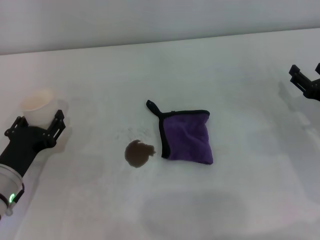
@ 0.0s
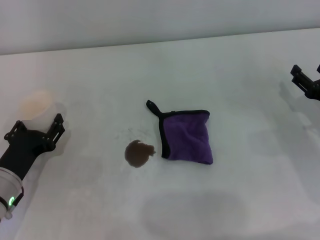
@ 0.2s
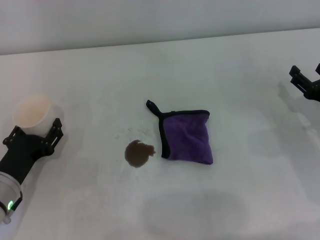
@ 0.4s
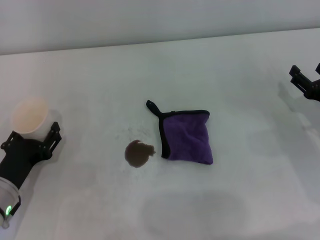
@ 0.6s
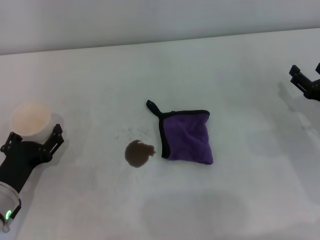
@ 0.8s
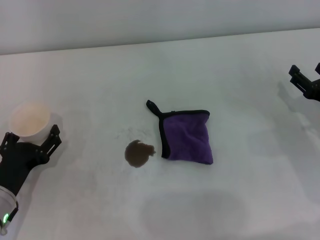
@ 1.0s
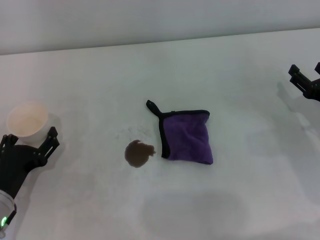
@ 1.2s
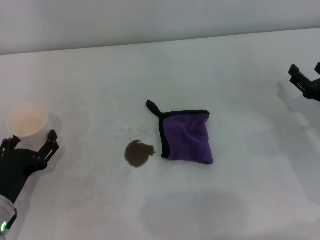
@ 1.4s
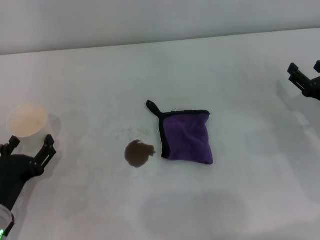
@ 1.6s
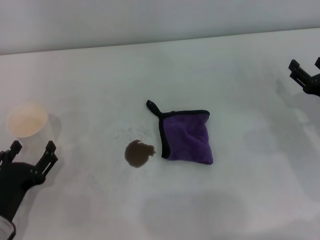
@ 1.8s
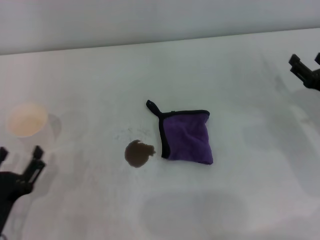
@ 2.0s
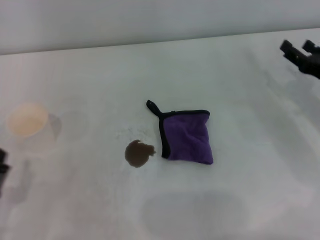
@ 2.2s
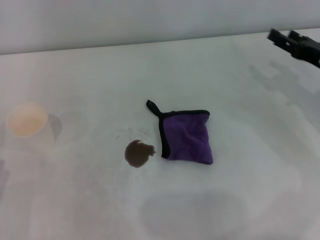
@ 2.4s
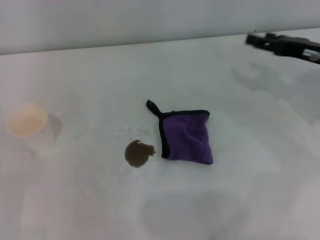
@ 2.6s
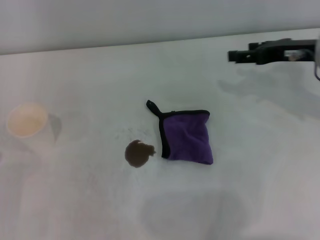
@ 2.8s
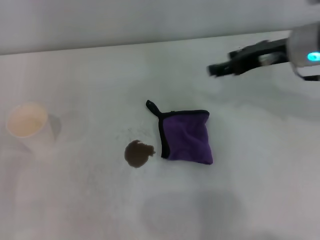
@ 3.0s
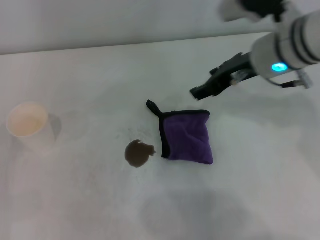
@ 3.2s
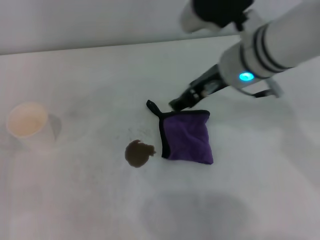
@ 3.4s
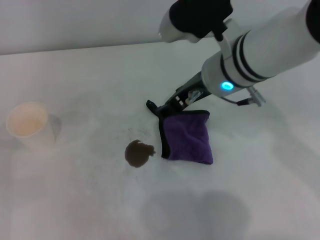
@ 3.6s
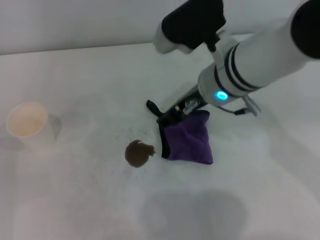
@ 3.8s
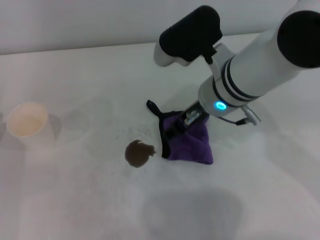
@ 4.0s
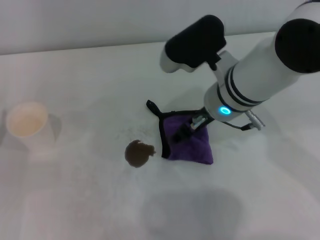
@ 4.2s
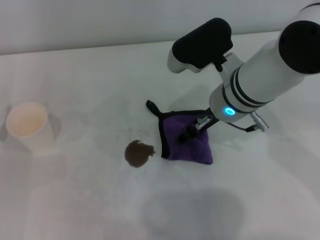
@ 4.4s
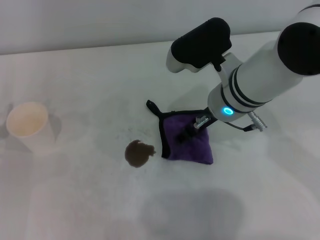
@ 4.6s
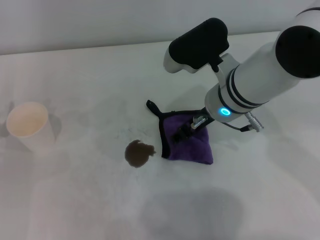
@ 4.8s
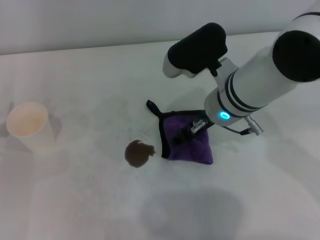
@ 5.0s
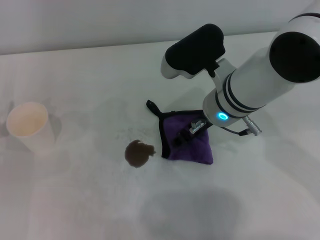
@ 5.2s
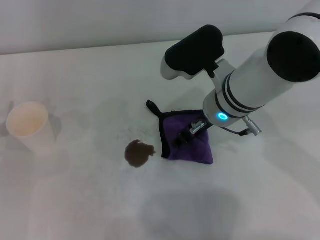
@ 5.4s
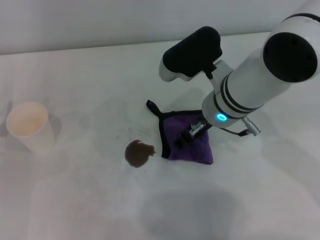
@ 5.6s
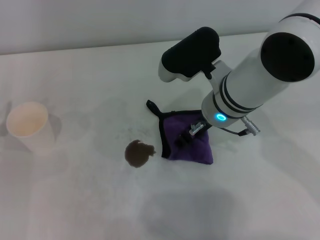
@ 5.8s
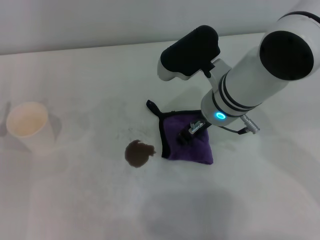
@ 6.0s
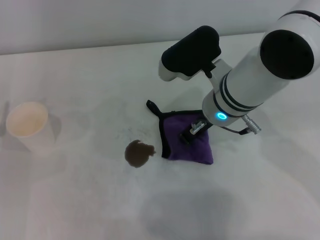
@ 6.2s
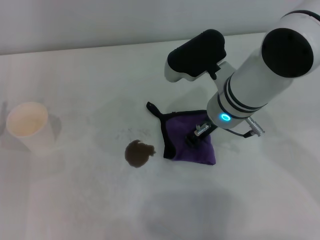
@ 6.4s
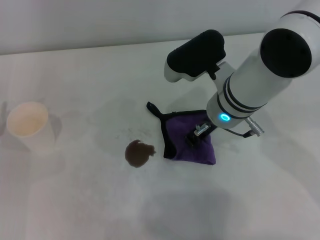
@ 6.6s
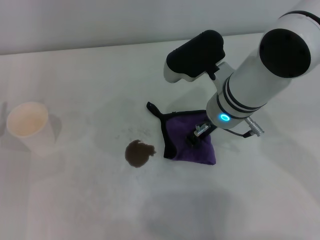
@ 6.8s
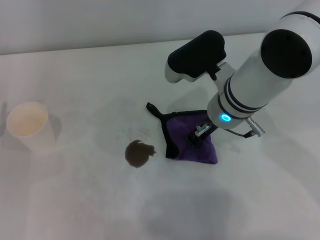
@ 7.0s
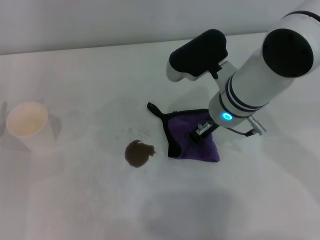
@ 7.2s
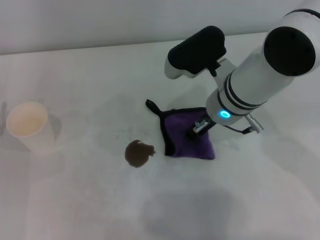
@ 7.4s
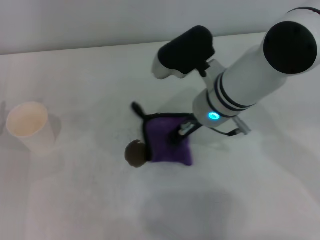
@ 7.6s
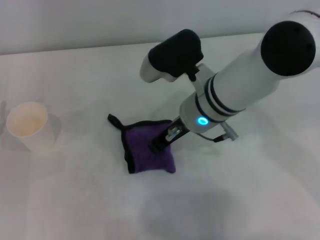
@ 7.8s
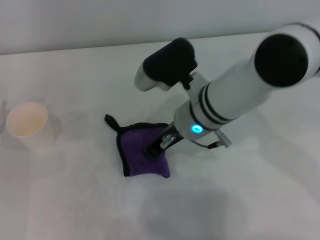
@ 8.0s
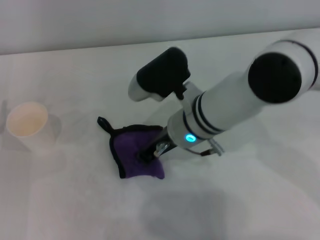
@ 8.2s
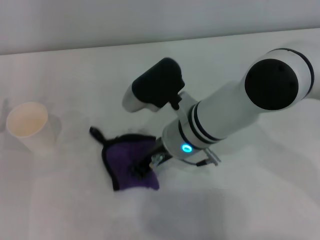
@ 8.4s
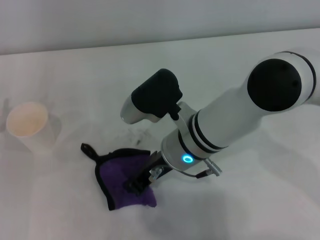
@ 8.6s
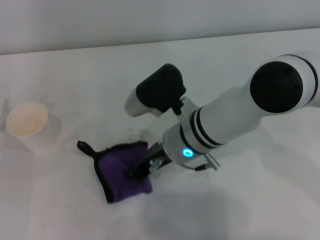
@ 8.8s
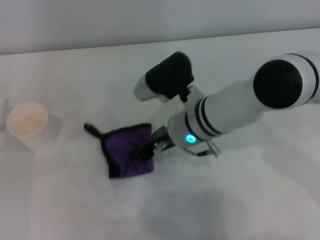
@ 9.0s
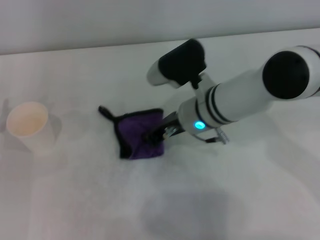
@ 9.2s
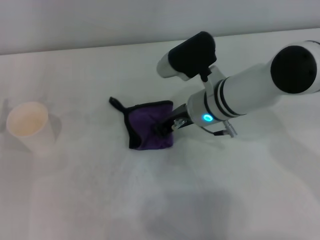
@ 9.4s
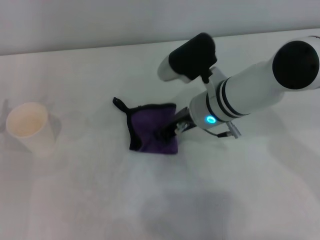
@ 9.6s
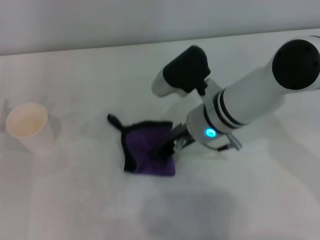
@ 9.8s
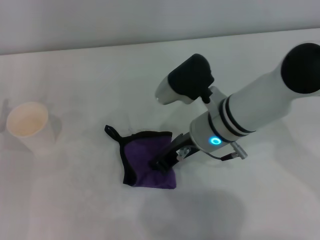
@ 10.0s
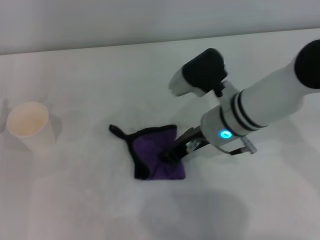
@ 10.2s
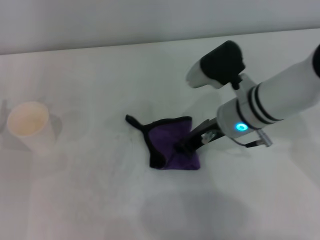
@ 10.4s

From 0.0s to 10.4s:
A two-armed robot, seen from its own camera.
Step, from 1.8s to 7.0s: Grasp the rag with the right gripper.
Step, from 7.2s to 10.2s: Wipe the stains off the table with the right gripper.
From 0.0s to 1.4s: The left gripper opens its fingers.
From 1.4s to 3.0s: The left gripper goes roughly 10 cm to the left, and reaches roughly 10 cm backward, then returns; the right gripper heads upward, to the left and forward, covering approximately 20 cm.
From 3.0s to 4.4s: The right gripper is displaced to the left by approximately 10 cm, while the left gripper is displaced forward by roughly 5 cm.
From 4.4s to 6.0s: The grippers make only small movements.
From 6.0s to 7.4s: The right gripper closes its fingers.
From 7.4s to 9.0s: The right gripper shifts by roughly 5 cm.
From 9.0s to 10.4s: The right gripper moves to the right, approximately 5 cm.

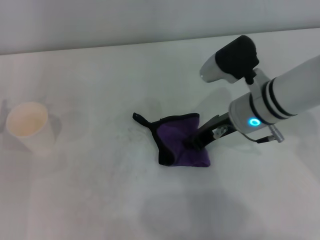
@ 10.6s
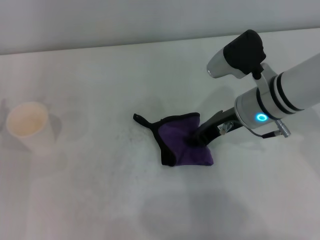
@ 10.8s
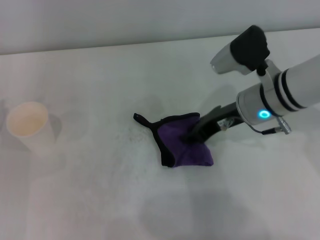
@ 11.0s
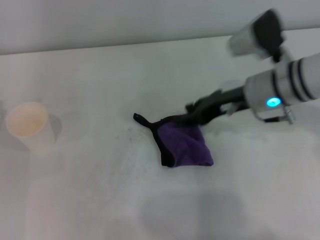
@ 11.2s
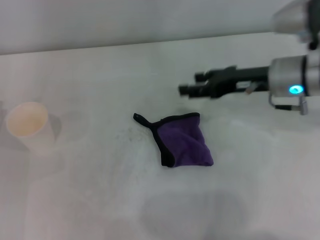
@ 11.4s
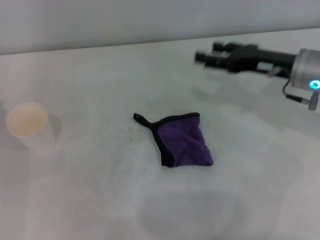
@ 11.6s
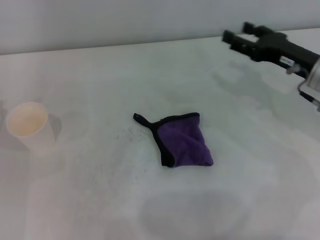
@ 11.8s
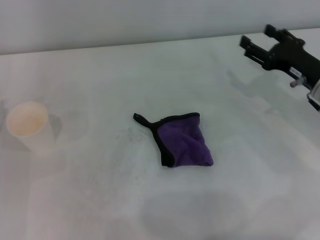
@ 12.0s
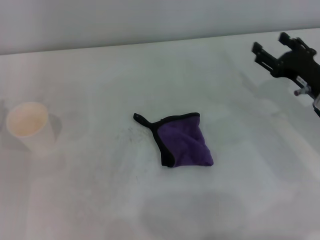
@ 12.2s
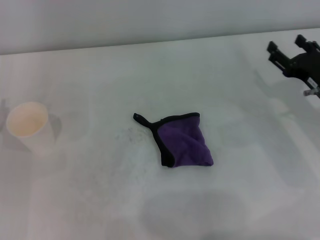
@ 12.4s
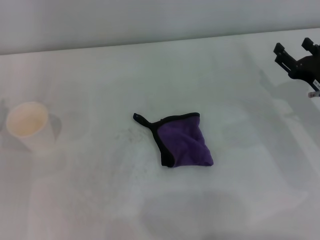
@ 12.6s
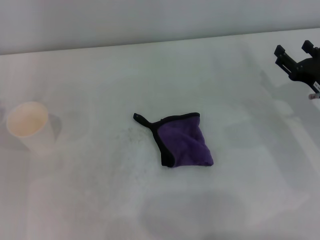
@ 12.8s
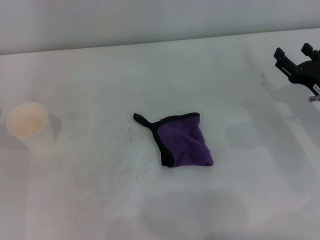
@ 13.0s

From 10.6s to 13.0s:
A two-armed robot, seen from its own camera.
Step, from 10.6s to 11.0s: Place the rag on the table with the right gripper.
From 10.6s to 11.8s: The right gripper shifts roughly 10 cm to the right, and opens its fingers.
From 11.8s to 13.0s: The right gripper travels downward by about 5 cm.

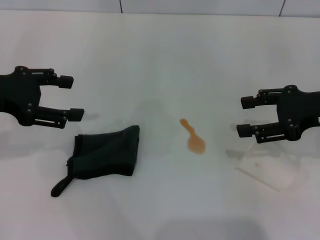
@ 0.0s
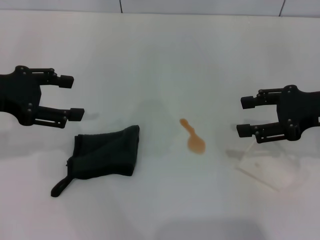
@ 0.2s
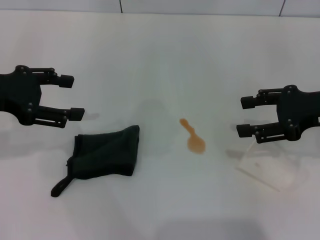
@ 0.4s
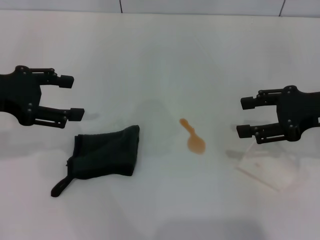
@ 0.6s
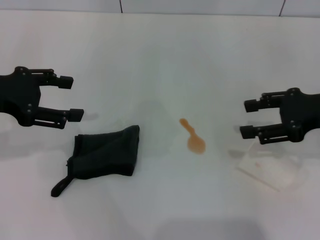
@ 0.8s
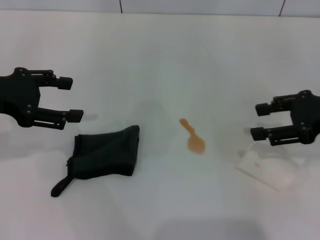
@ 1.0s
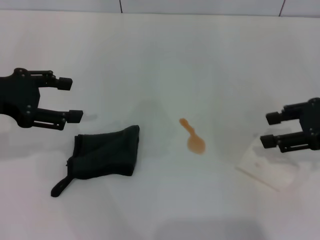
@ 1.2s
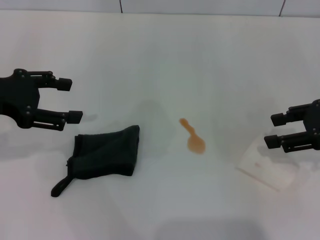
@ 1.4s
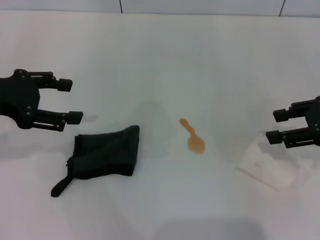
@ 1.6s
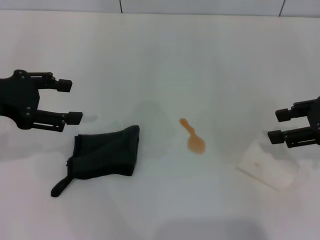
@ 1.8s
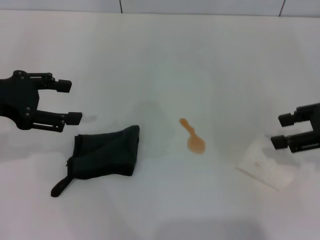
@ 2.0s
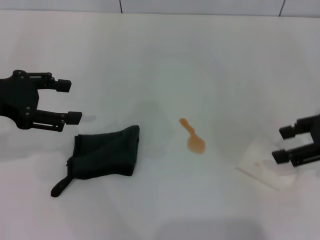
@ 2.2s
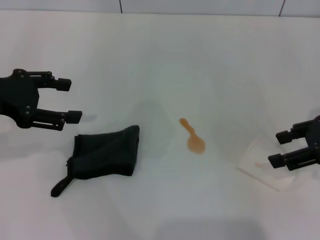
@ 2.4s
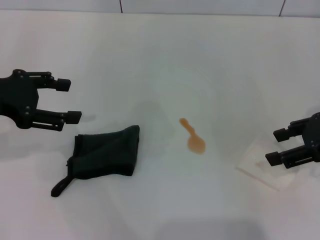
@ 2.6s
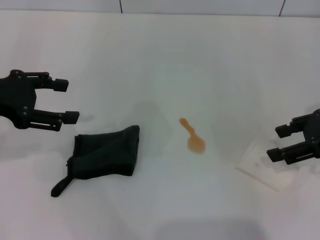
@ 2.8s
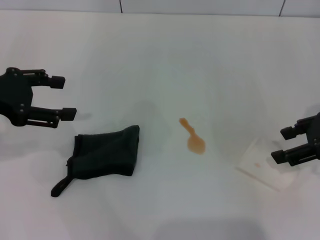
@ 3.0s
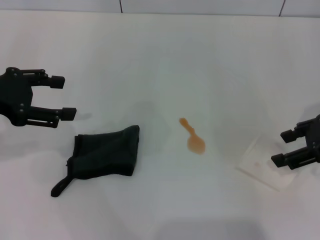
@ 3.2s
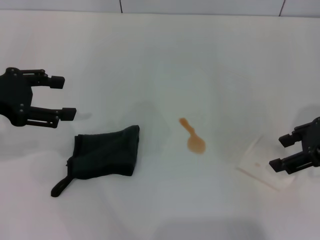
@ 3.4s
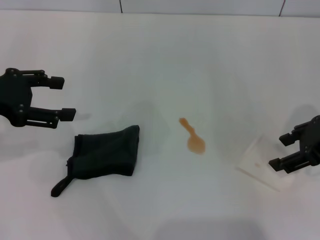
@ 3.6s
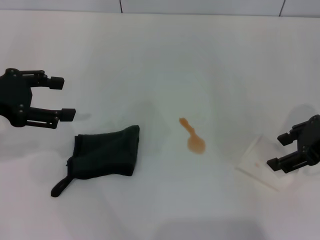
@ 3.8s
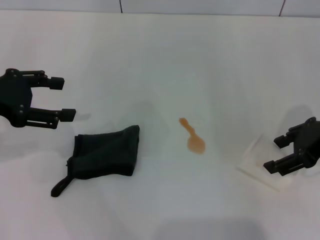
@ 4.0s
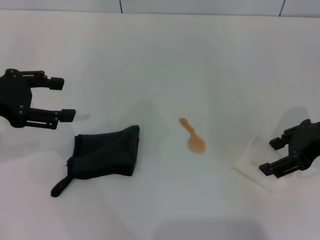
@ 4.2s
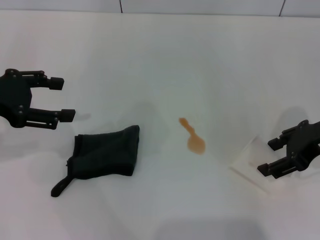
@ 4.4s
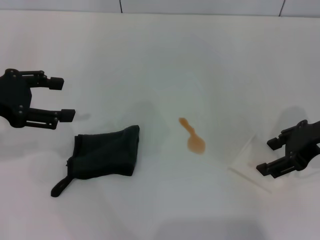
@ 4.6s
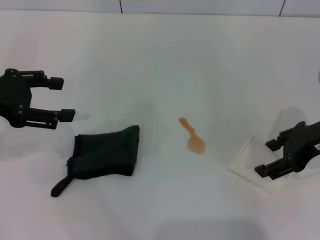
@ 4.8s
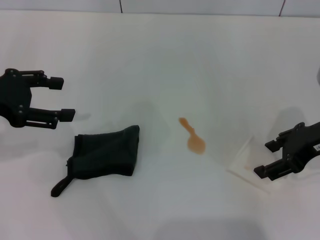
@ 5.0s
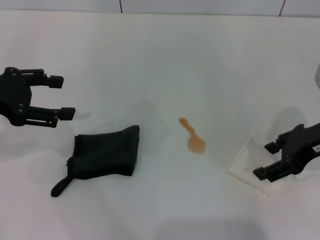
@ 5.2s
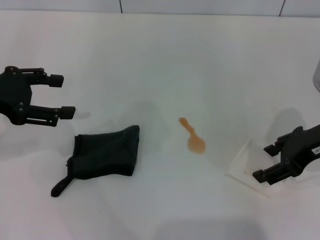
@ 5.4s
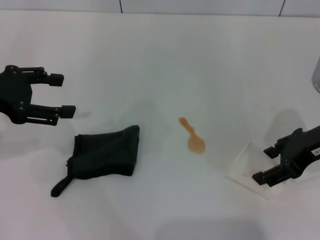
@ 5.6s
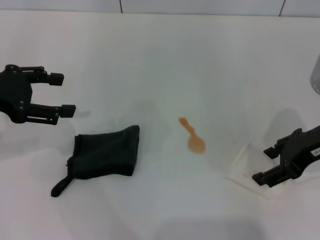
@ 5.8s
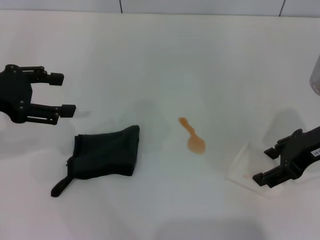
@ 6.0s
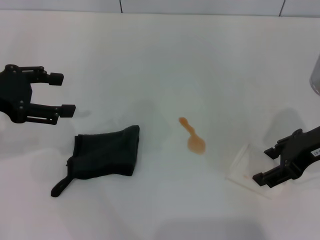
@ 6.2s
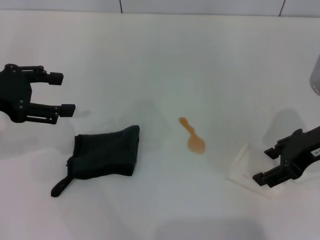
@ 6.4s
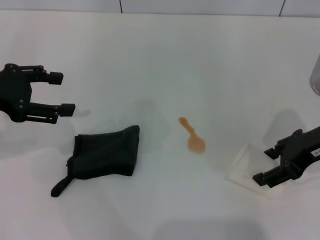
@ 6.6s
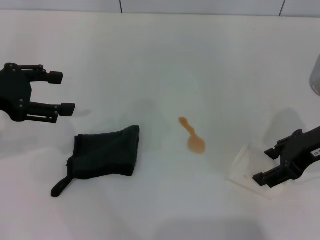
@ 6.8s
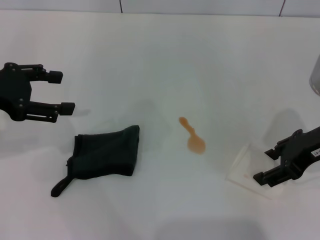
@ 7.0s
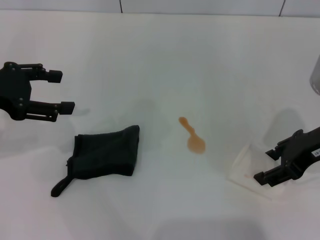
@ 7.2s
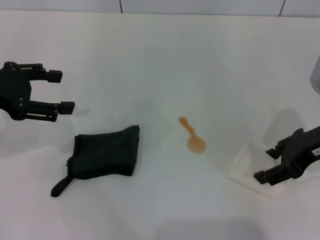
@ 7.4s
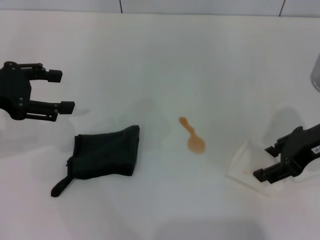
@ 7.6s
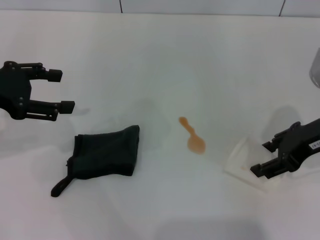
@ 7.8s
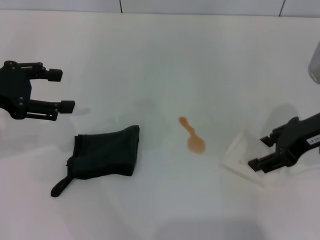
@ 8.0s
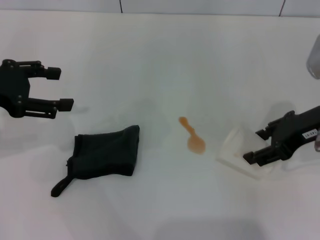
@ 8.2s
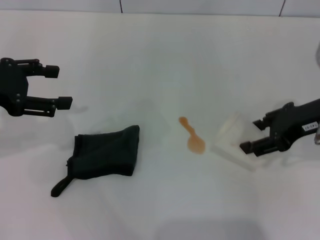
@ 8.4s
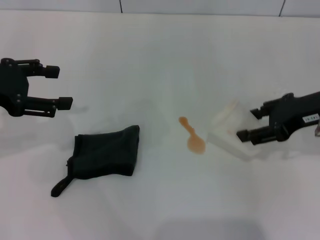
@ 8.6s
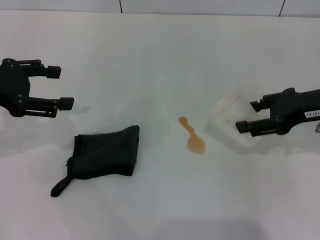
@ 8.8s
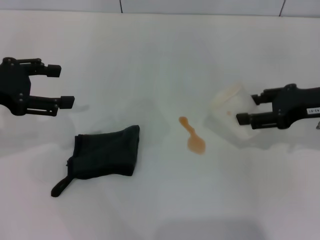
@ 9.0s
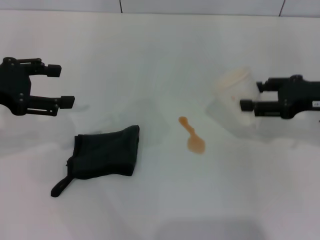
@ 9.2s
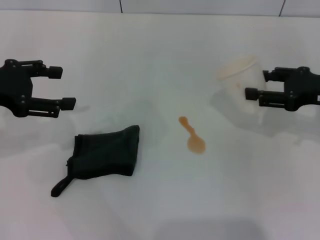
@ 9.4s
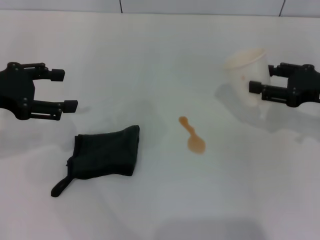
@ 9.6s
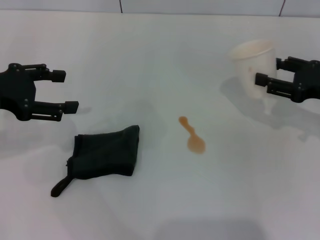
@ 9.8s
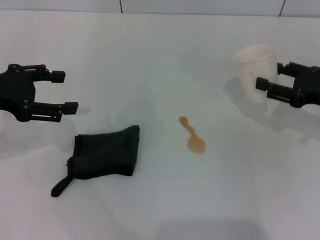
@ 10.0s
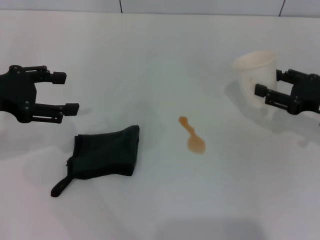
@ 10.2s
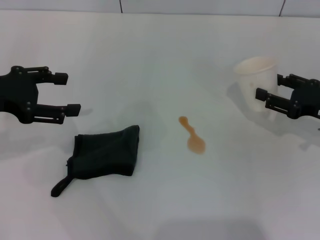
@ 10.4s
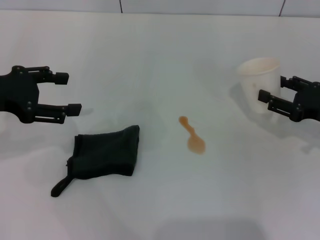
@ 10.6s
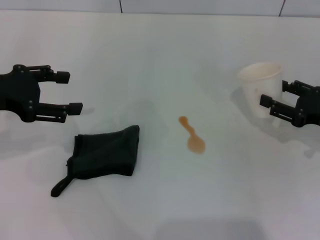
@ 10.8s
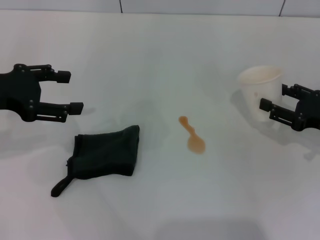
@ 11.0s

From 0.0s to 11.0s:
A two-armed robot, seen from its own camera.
Step, from 0.0s to 7.0s: Grasp the paper cup with the right gripper.
From 0.0s to 1.6s: The right gripper closes.
From 1.6s to 3.2s: The right gripper opens up.
From 3.2s to 4.8s: The grippers make only small movements.
From 4.8s to 6.2s: Both grippers stay about where they are.
From 6.2s to 7.8s: The right gripper closes.
From 7.8s to 9.4s: The right gripper is displaced to the right by approximately 5 cm.
From 9.4s to 11.0s: The right gripper goes roughly 5 cm downward.
